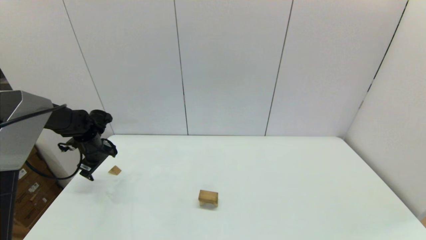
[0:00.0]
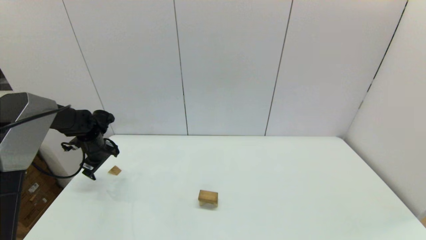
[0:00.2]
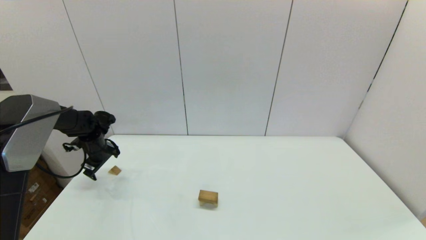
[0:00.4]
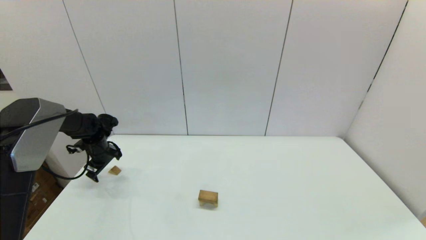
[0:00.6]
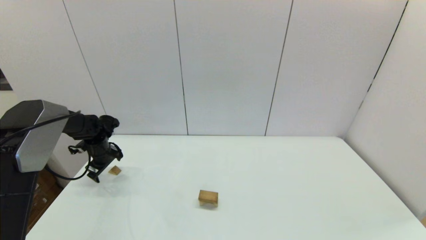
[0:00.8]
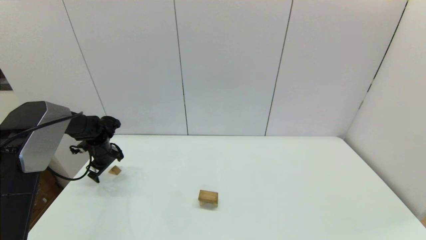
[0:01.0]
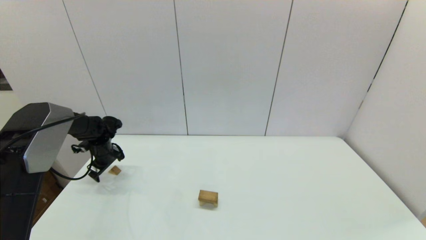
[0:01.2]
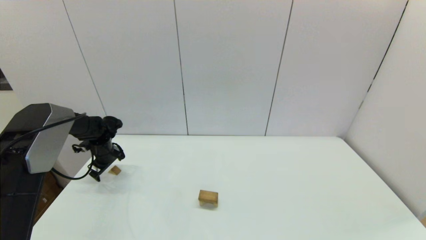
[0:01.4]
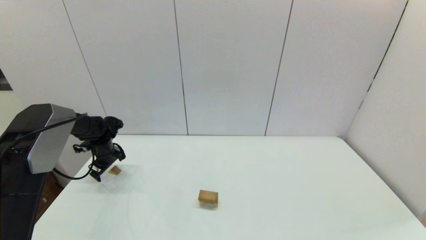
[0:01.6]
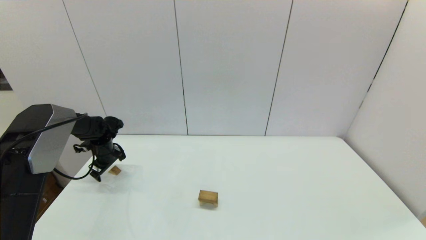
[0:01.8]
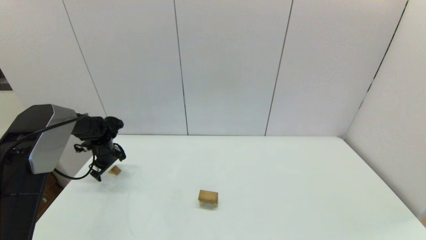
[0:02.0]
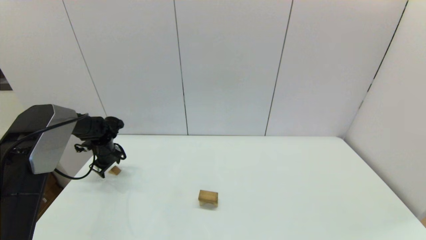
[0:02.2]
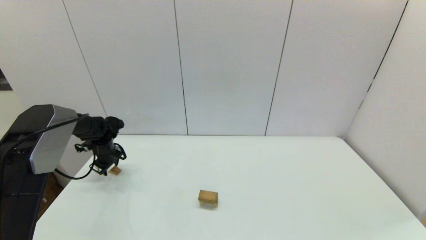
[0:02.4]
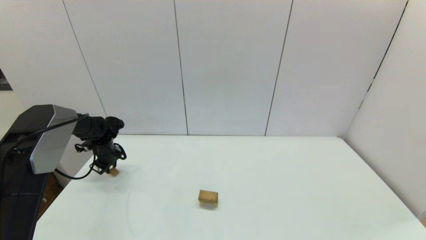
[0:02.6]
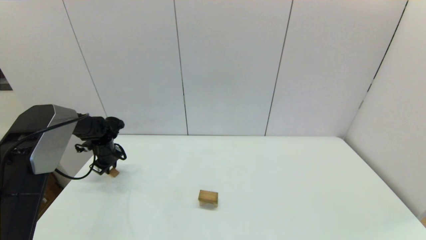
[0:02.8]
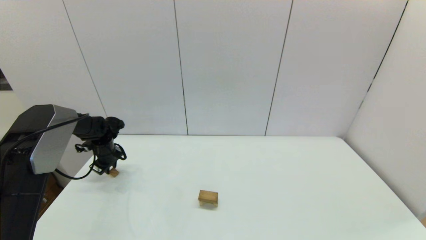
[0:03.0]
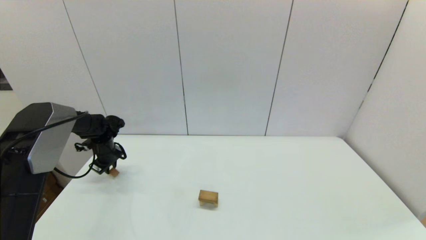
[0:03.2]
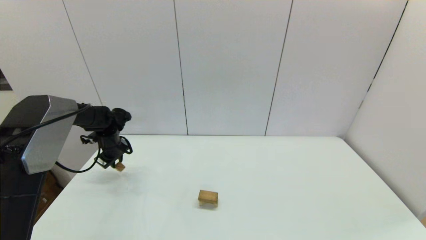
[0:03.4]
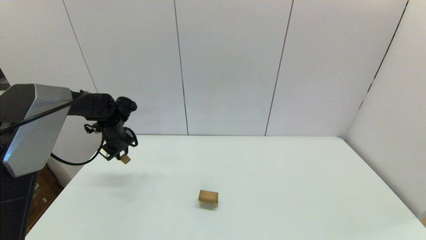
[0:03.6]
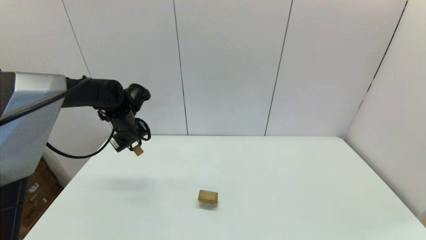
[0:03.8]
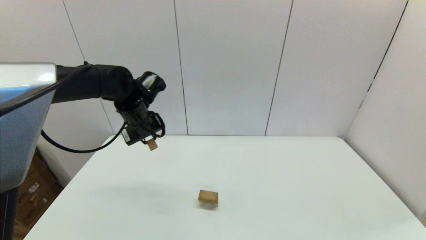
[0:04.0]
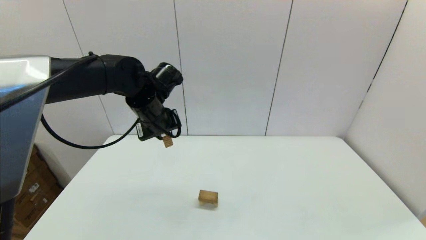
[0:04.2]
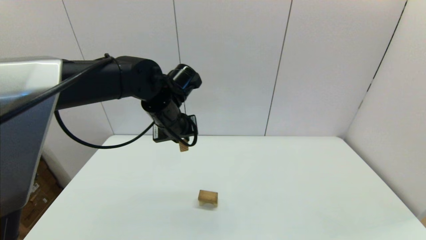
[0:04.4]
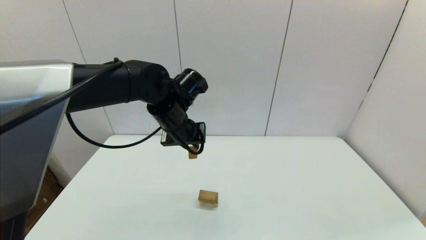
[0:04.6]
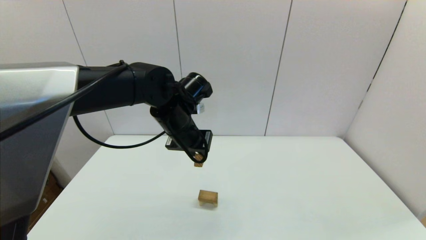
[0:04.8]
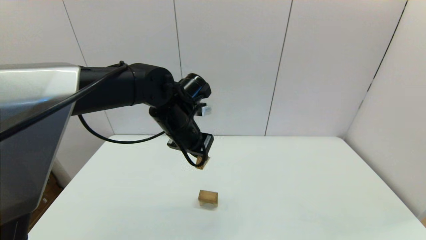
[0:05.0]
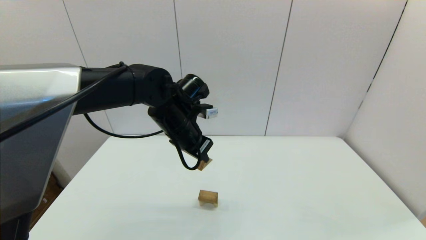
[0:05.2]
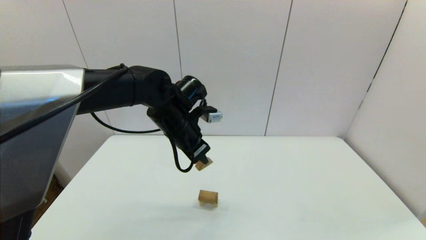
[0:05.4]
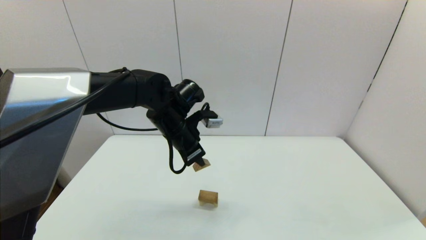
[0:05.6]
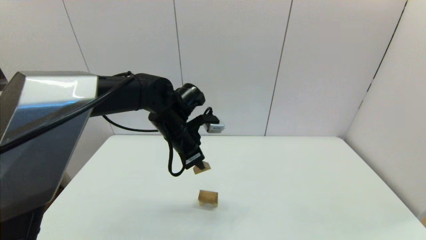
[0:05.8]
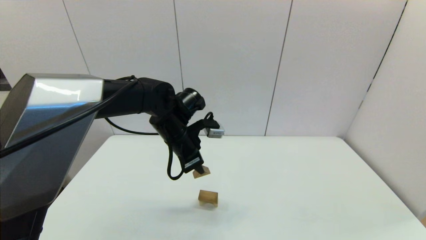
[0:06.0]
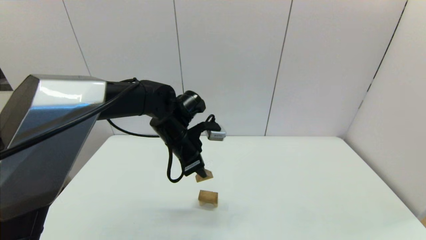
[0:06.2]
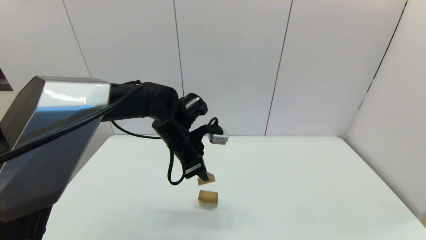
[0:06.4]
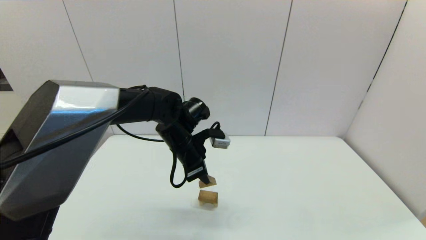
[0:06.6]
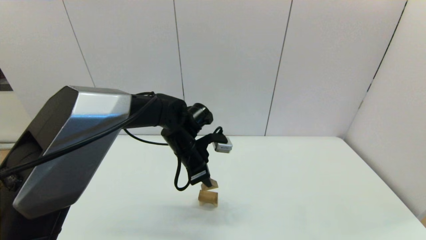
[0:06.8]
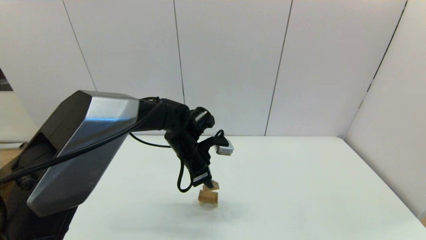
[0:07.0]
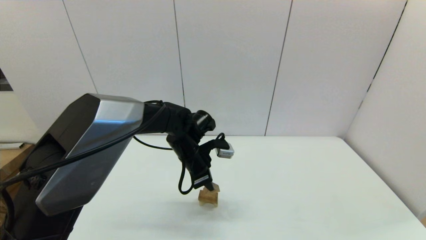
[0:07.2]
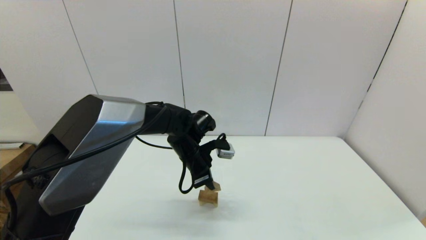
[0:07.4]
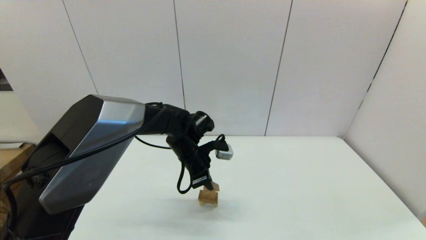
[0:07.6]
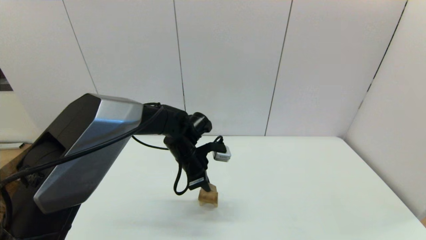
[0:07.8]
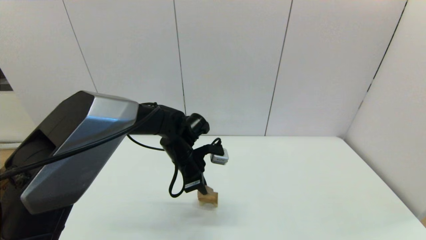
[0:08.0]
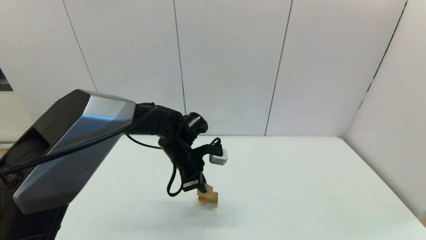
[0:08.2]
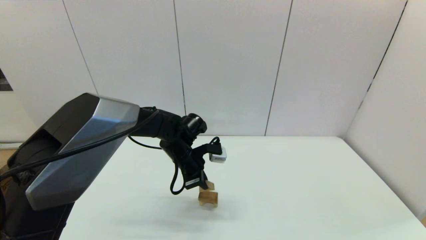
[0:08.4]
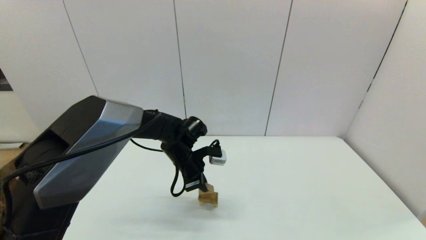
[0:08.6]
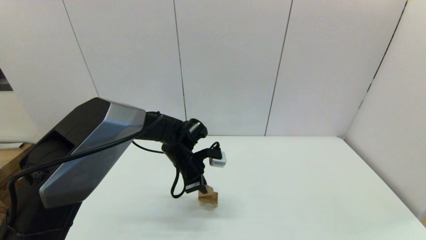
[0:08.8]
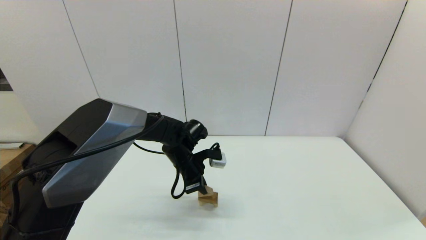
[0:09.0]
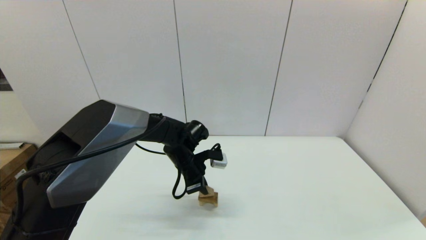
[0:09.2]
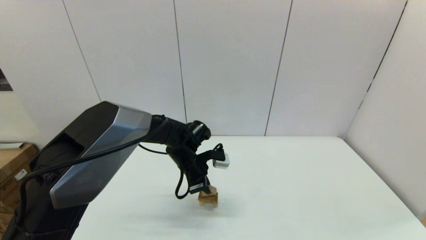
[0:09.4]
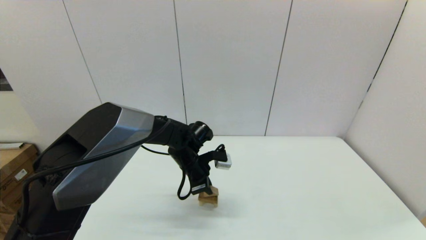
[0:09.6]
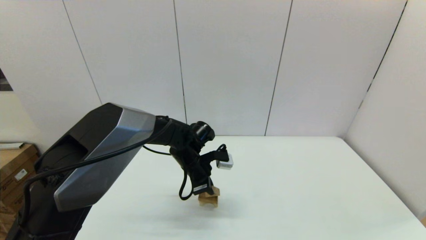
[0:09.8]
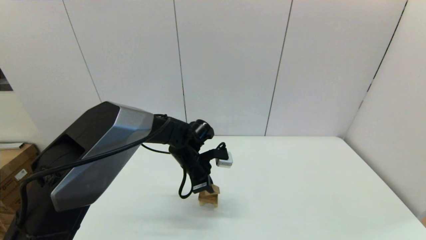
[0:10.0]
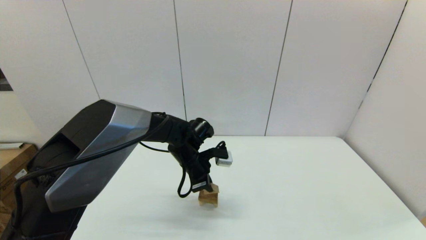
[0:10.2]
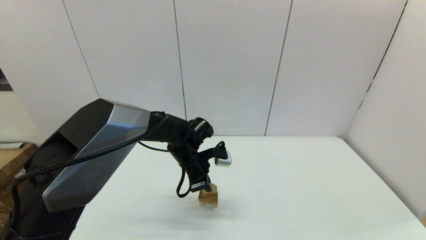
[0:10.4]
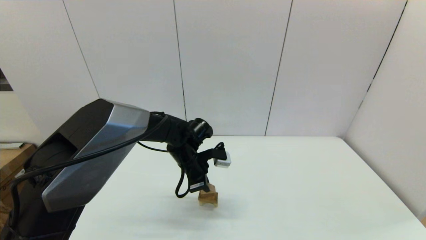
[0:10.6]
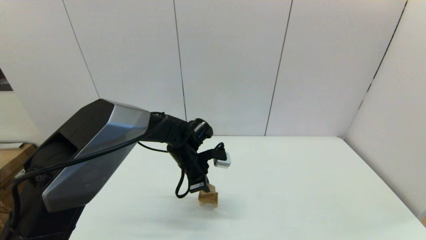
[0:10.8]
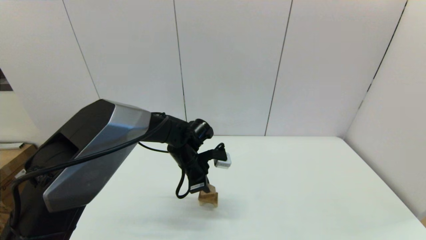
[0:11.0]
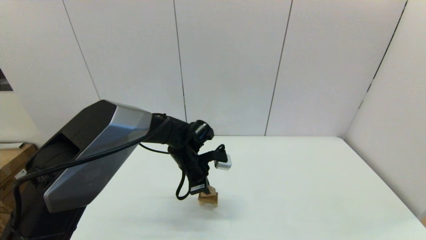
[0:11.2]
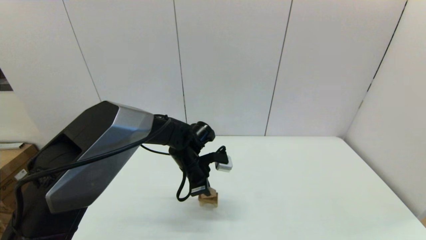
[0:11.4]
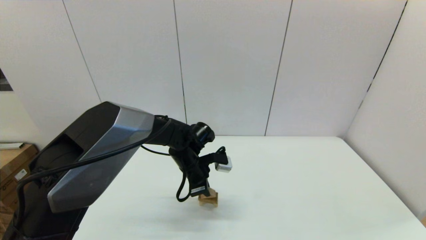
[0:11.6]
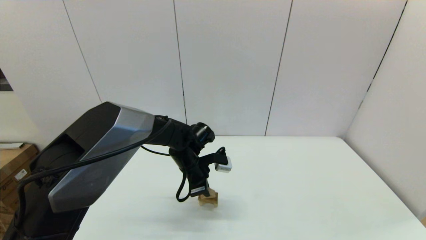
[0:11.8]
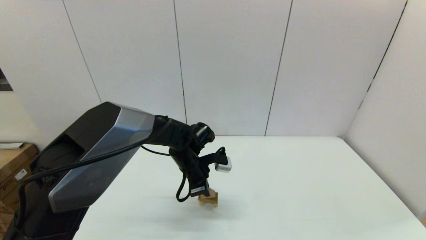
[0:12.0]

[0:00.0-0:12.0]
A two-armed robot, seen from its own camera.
Task of the whole recording: place the arched building blocks in the center of the table, set up the rectangular building blocks, and then set up the triangular building blocks.
Step, 0.0 to 2.4 s: Grasp the triangle-shaped block with the left gripper.
0.0 to 1.6 s: The left gripper changes place by roughly 5 cm.
1.6 to 3.0 s: The left gripper closes.
3.0 to 4.4 s: The left gripper shifts about 35 cm to the right, upward and backward.
4.4 to 6.0 s: The left gripper shifts by approximately 5 cm.
6.0 to 7.6 s: The left gripper is displaced downward by some 5 cm.
7.6 to 10.4 s: There are only small adjustments of the grippers.
10.4 to 12.0 s: The two grippers keep their place.

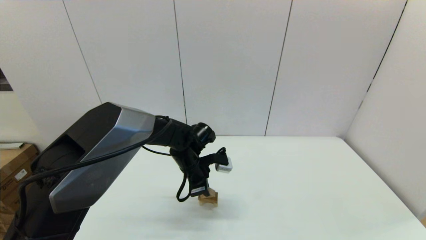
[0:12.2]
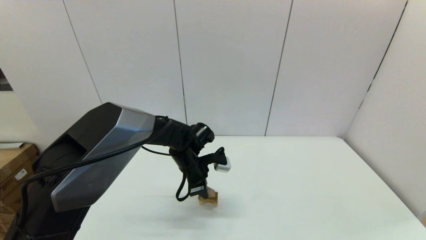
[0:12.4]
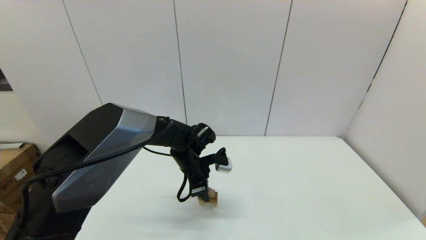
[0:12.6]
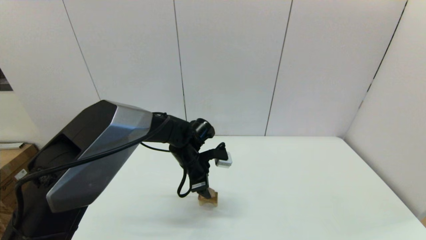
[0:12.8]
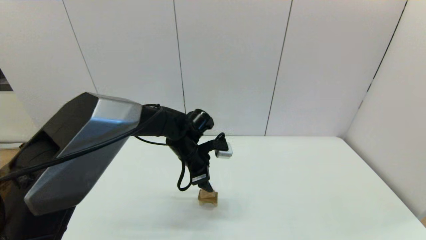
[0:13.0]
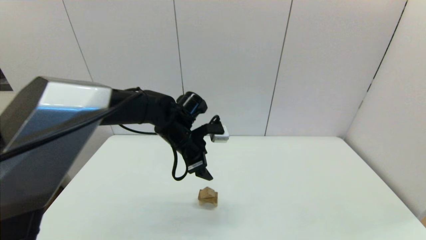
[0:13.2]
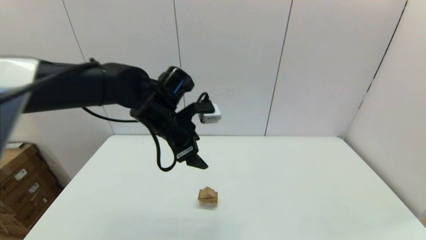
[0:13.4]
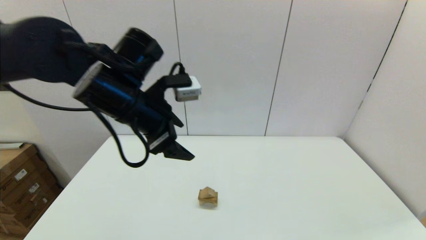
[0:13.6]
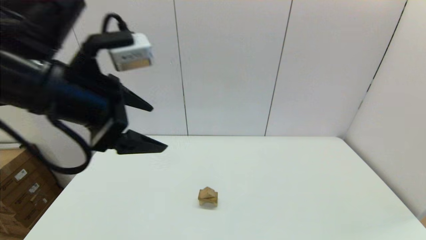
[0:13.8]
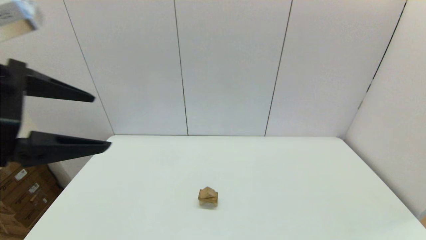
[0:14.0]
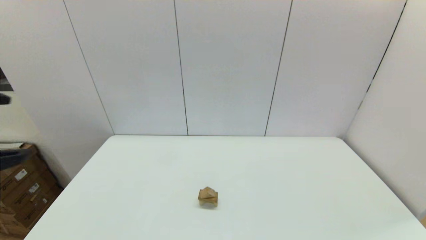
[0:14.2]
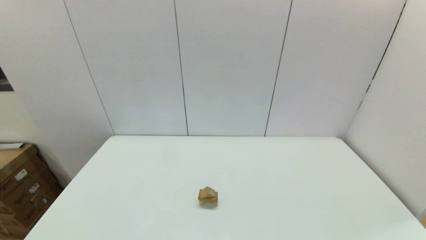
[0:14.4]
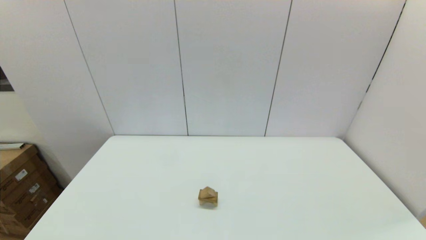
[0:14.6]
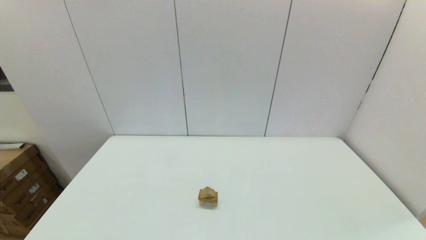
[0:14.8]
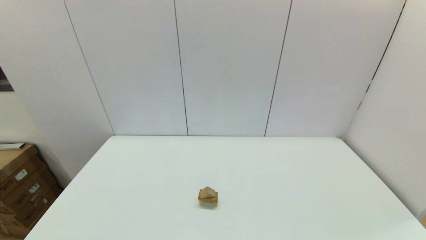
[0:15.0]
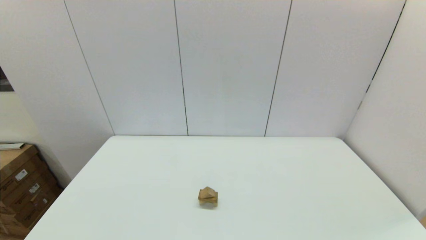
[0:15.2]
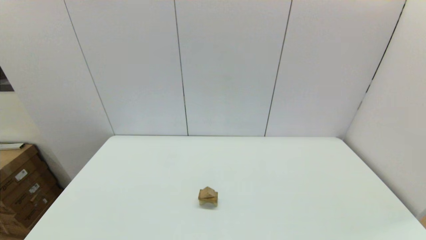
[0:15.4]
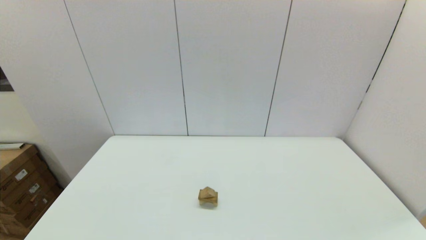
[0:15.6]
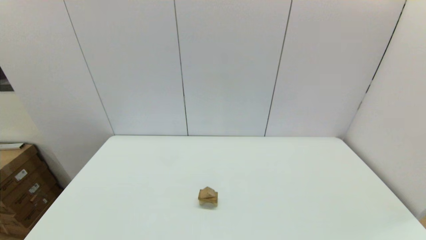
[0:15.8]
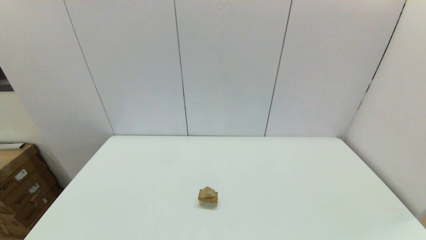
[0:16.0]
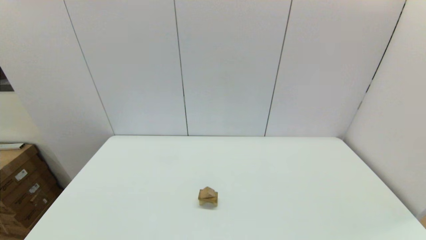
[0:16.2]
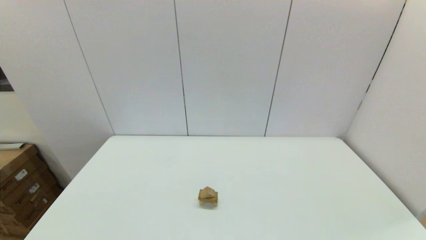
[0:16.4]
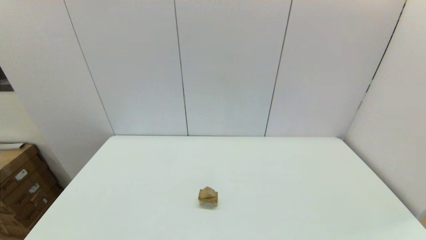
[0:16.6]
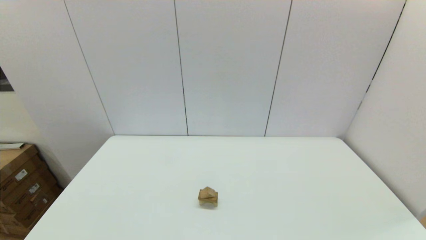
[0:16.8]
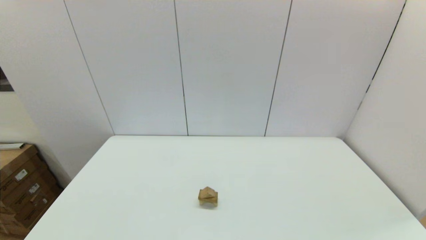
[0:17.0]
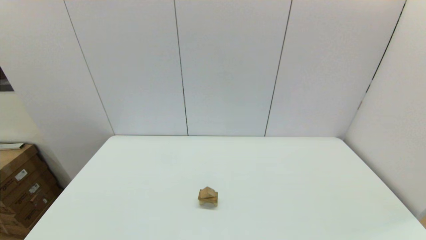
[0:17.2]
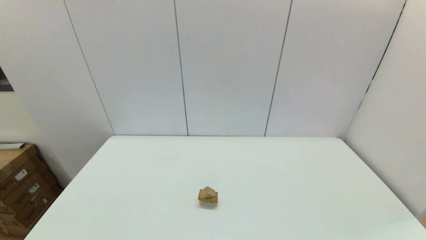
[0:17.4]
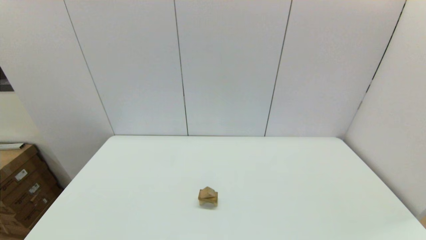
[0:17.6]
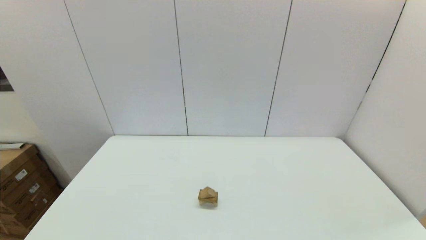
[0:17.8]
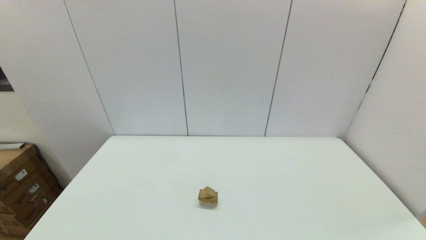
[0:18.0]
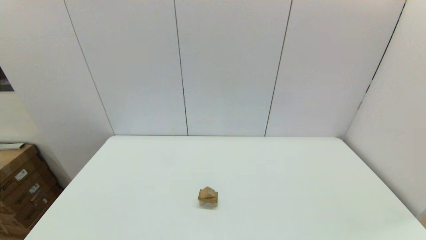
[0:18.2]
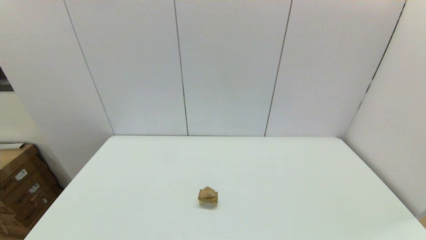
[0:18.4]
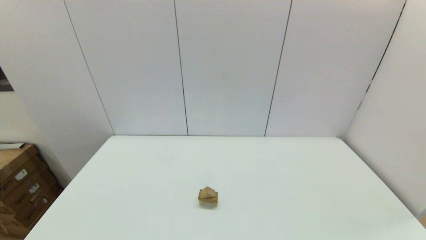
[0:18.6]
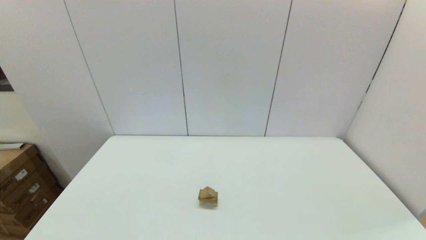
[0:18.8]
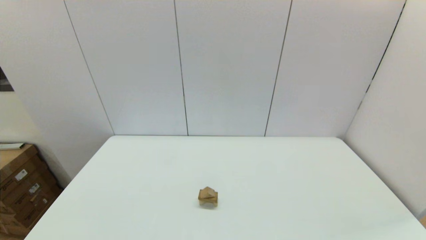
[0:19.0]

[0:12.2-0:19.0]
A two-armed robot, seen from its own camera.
Task of the whole recording: place the arched building blocks in the center of the table, set up the rectangular building blocks, and then set up the triangular building blocks.
12.2 to 13.6 s: The left gripper heads upward and backward, covering about 25 cm, and opens up.
13.6 to 15.0 s: The left gripper shifts some 40 cm backward and to the left.
